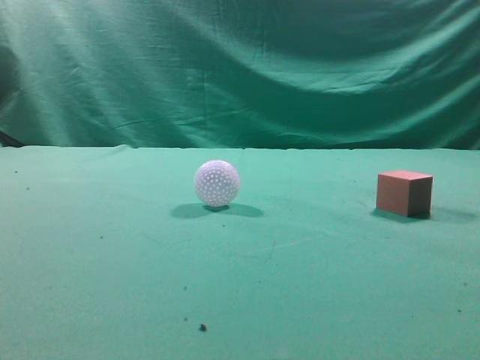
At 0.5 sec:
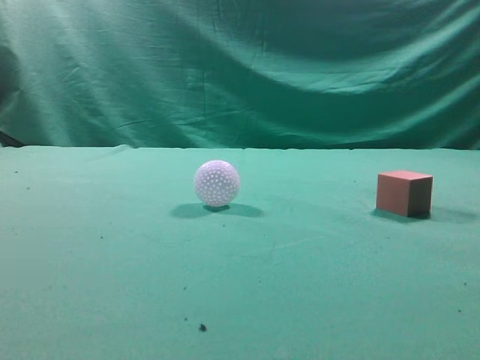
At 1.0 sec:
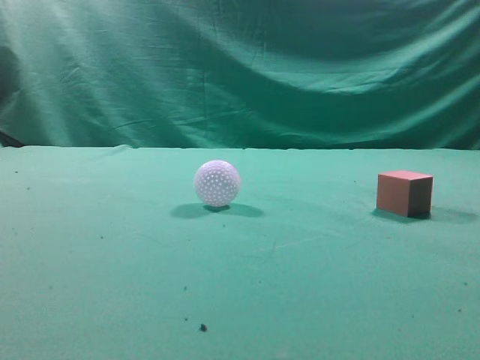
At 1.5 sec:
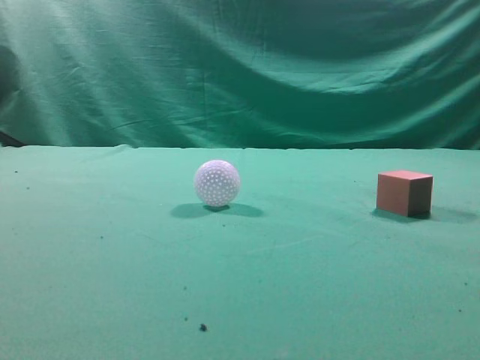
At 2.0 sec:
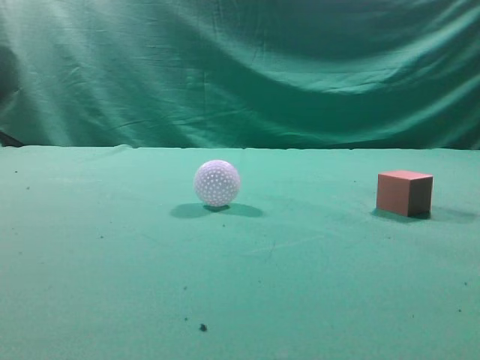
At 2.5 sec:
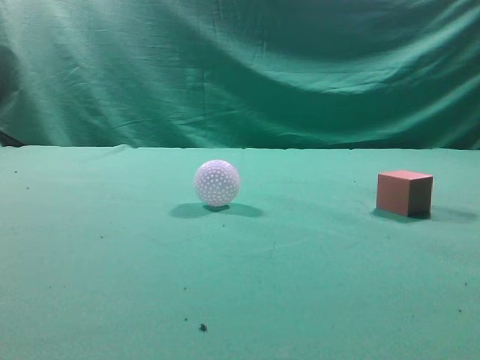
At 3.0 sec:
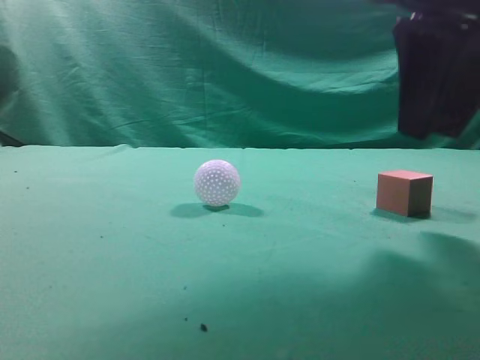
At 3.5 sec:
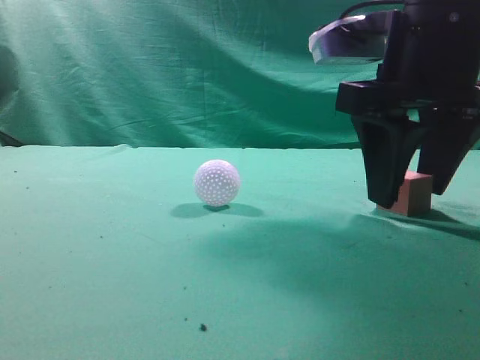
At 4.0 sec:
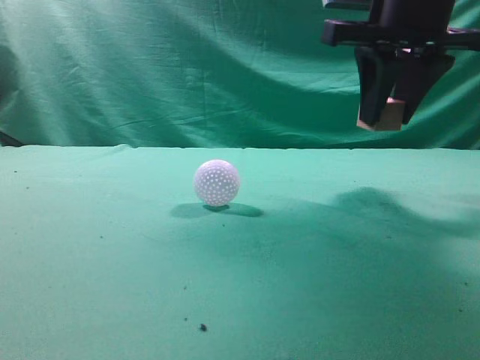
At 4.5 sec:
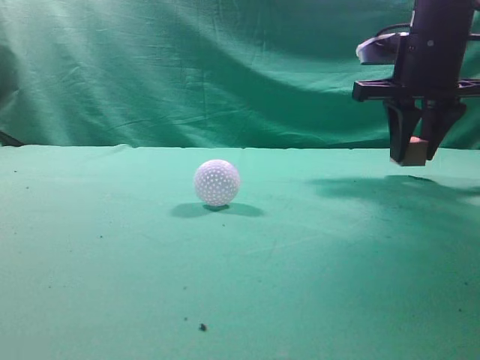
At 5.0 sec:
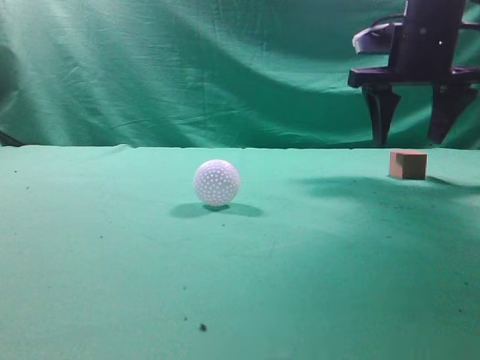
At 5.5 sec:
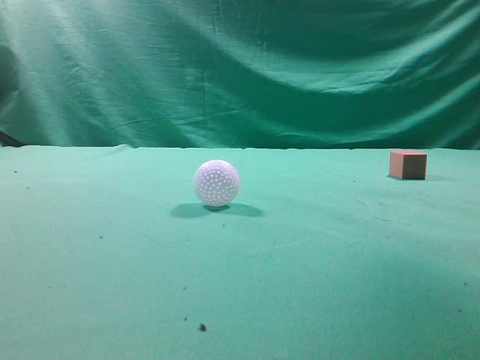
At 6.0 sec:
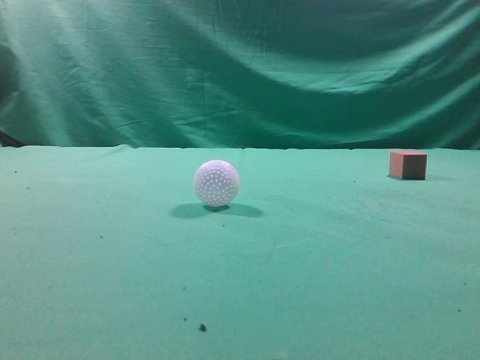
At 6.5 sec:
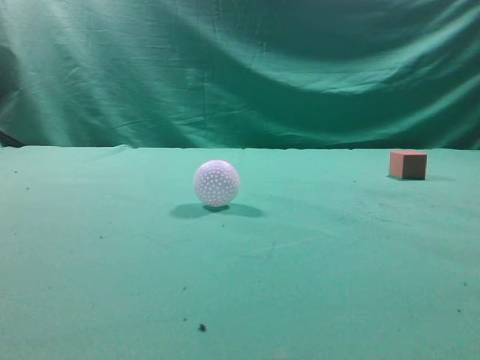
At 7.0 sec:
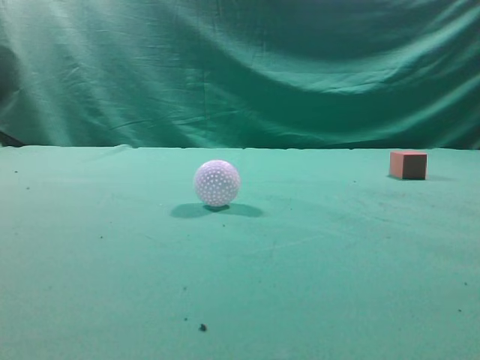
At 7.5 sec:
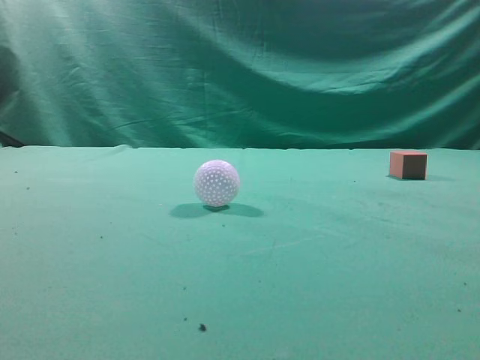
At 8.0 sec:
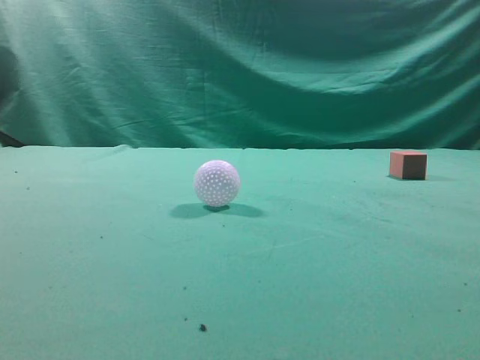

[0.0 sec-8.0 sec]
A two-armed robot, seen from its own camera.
Task of the whole recording: pick up the cube block and place it in another position on the table.
Step, 0.0 sec to 3.5 sec: Pick up the small cube.
Step, 4.0 sec to 4.5 sec: Place the small cube on the ahead of the table.
2.0 sec to 4.0 sec: The right gripper moves forward and to the left, some 25 cm, and opens.
4.0 sec to 6.0 sec: The right gripper shifts roughly 25 cm backward, upward and to the right, and closes up.
